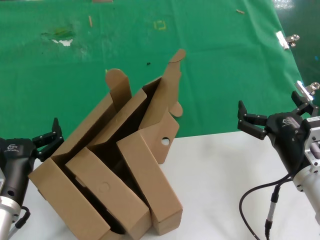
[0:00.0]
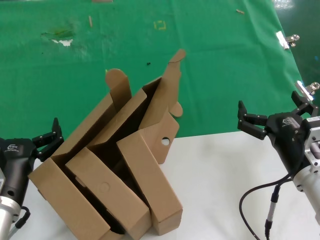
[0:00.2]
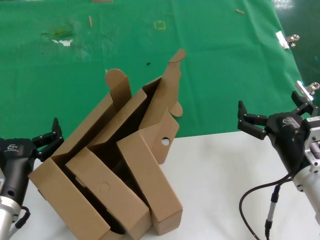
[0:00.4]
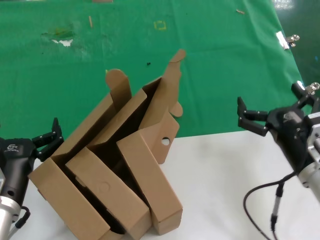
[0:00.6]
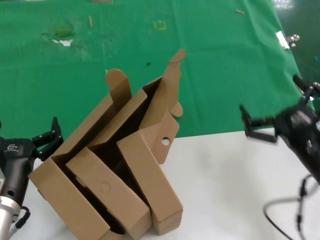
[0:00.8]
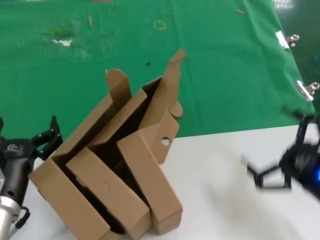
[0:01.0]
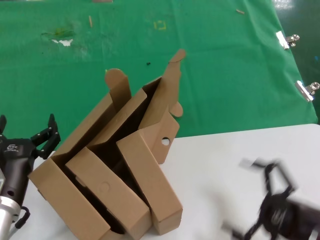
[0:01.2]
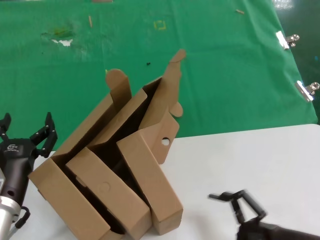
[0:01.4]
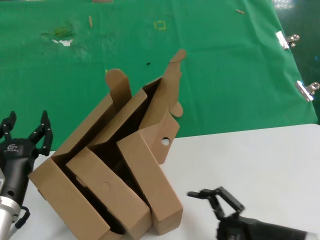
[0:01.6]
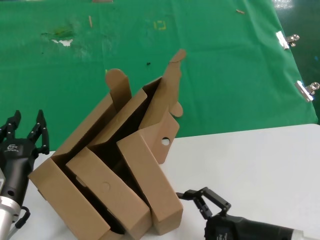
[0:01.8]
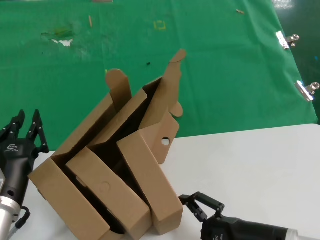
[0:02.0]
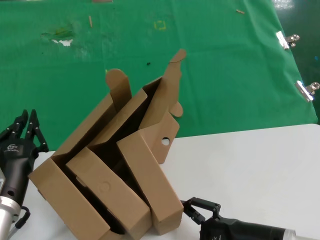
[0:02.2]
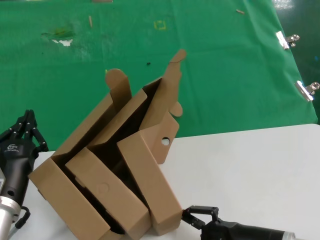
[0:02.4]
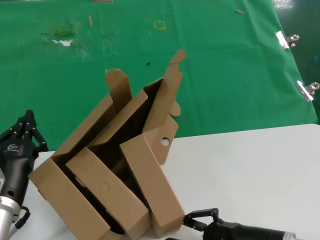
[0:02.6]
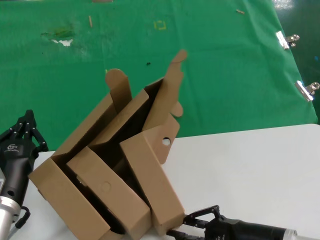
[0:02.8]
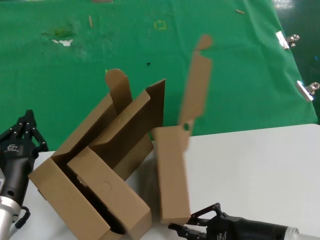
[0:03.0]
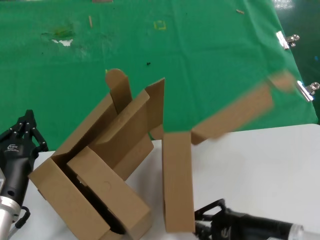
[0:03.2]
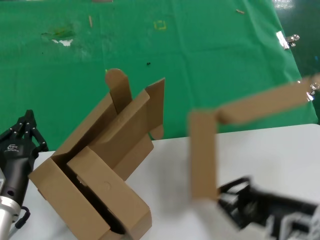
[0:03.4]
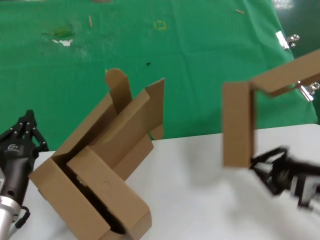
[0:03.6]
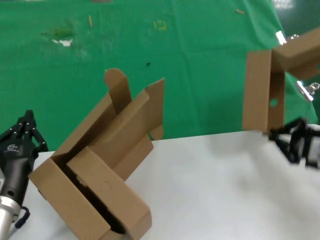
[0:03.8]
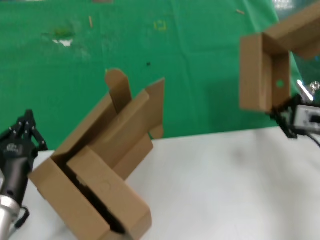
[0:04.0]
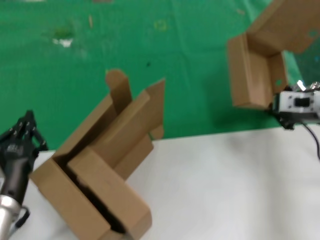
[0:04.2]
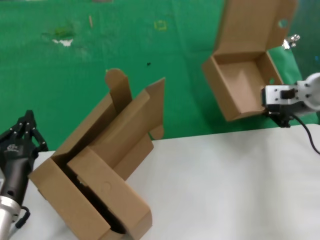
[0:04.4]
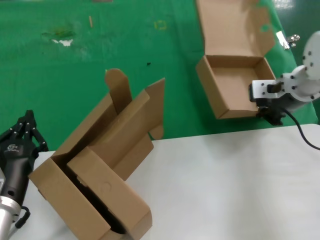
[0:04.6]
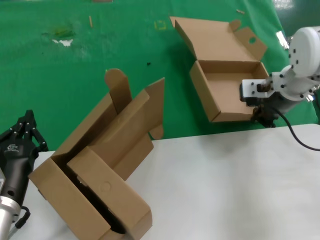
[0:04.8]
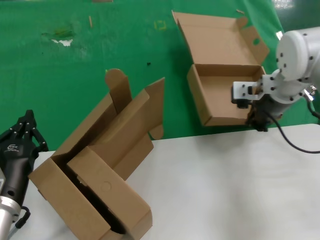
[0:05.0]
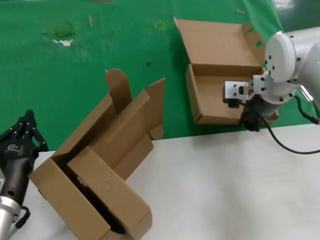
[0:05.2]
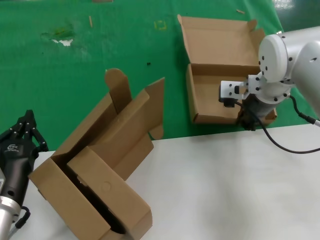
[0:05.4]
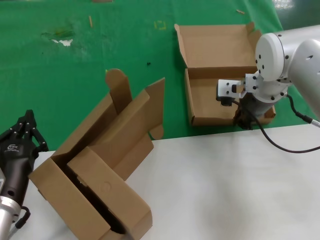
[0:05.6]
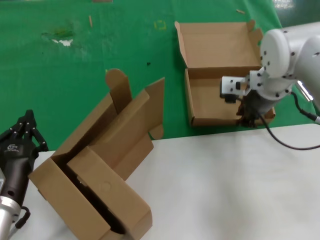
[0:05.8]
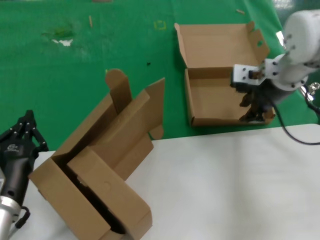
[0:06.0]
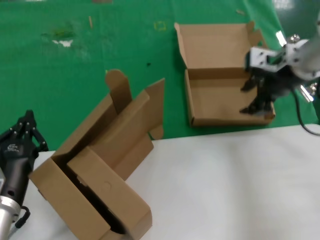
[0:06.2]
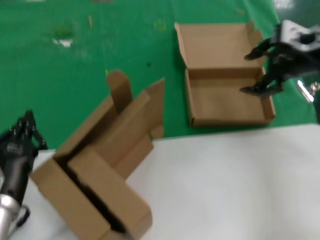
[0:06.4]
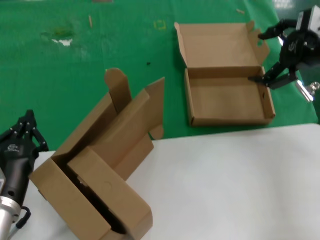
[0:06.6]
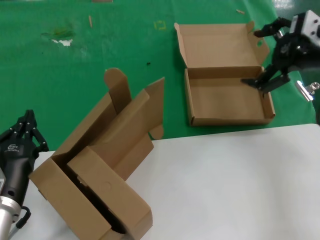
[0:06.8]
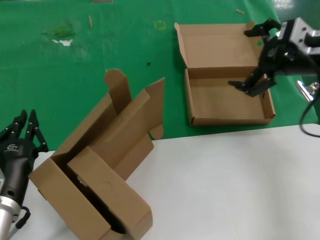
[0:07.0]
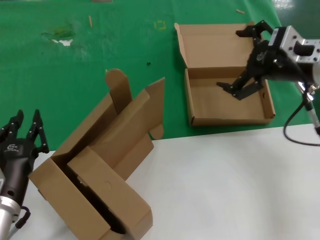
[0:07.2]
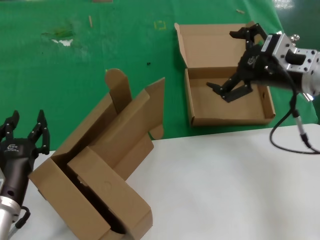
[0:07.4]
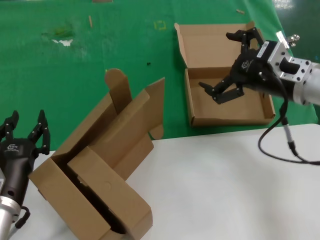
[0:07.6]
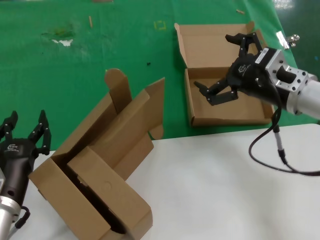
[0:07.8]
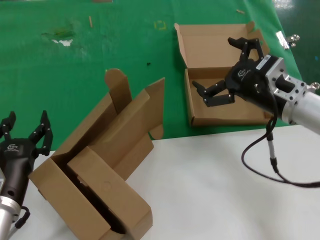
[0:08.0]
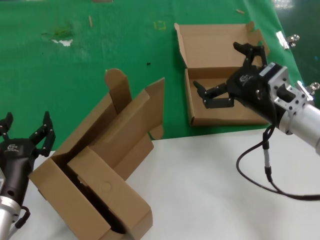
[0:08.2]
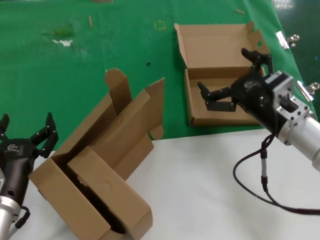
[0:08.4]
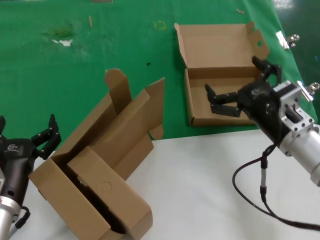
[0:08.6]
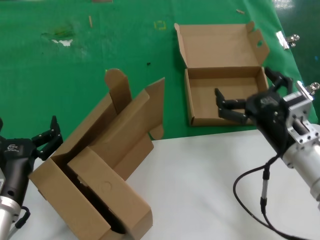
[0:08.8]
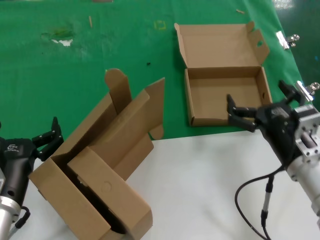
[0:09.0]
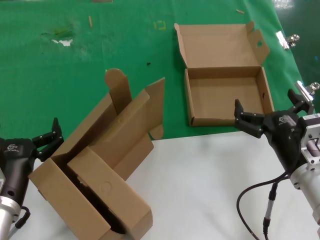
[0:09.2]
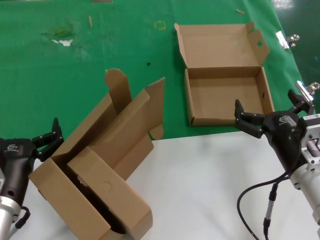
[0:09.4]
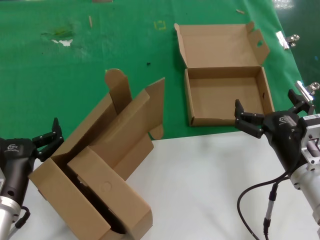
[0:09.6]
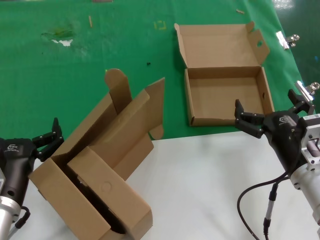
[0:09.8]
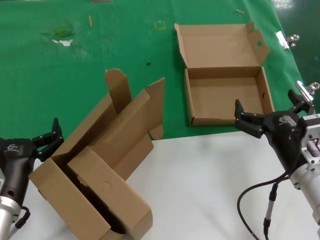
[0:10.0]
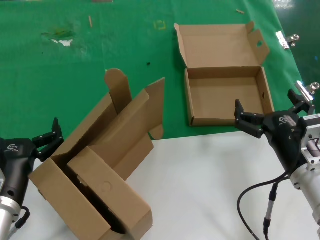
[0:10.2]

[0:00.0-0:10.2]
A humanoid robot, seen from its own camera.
Task of the whole recording: pick up the paper box and put it at the back.
Step, 0:00.0 to 0:03.0: Grasp the paper box.
Step, 0:03.2 to 0:05.8: Place the paper box on the table.
0:00.0 to 0:01.4: The right hand goes some 10 cm backward.
0:01.4 to 0:03.0: The right hand ends up some 5 cm from where it was.
0:03.0 to 0:04.4: The right hand travels forward and upward by roughly 30 cm.
0:04.4 to 0:05.8: The right hand moves to the left, about 10 cm.
0:05.8 to 0:07.2: The right hand travels backward, to the right and upward by some 15 cm.
0:07.2 to 0:08.8: The right hand moves downward and backward, some 20 cm.
0:08.8 to 0:10.2: The hands move only a little.
